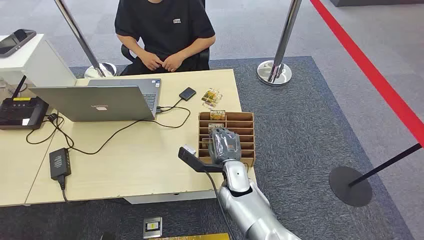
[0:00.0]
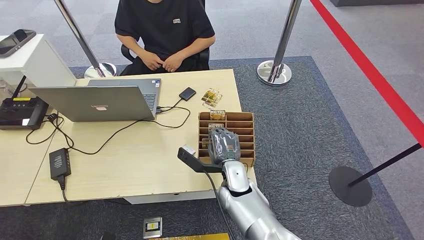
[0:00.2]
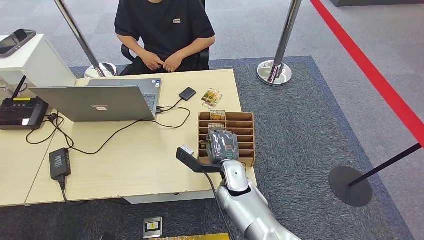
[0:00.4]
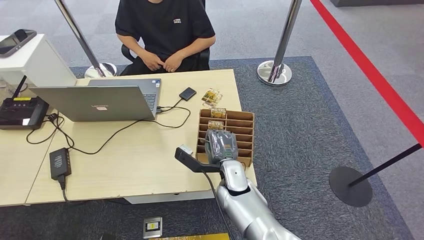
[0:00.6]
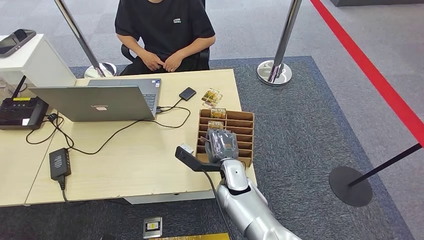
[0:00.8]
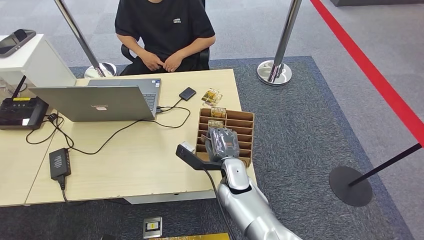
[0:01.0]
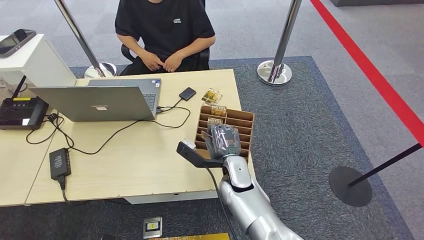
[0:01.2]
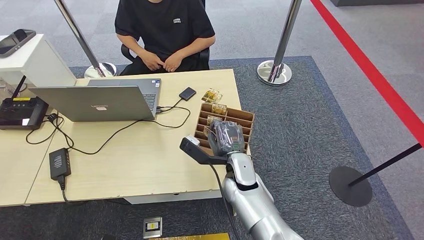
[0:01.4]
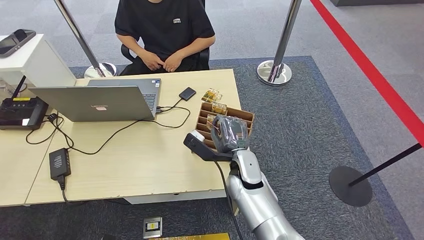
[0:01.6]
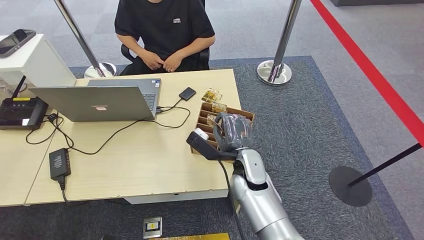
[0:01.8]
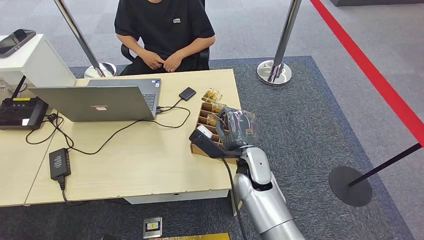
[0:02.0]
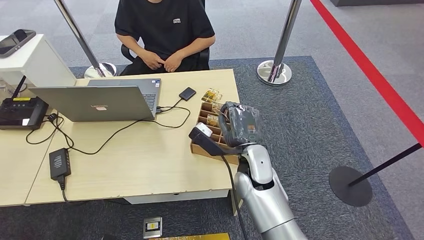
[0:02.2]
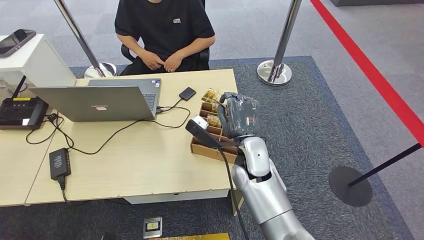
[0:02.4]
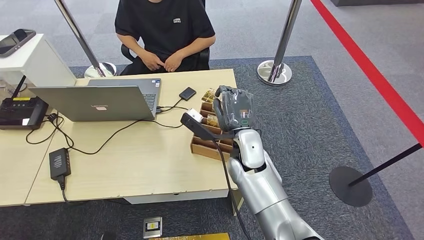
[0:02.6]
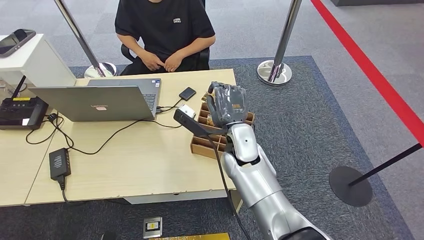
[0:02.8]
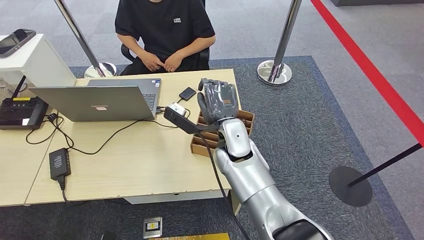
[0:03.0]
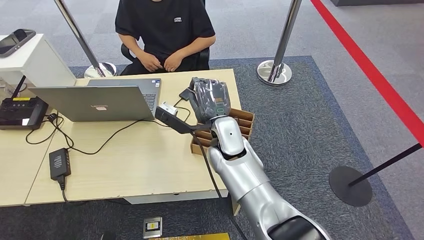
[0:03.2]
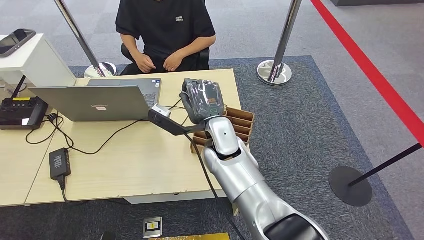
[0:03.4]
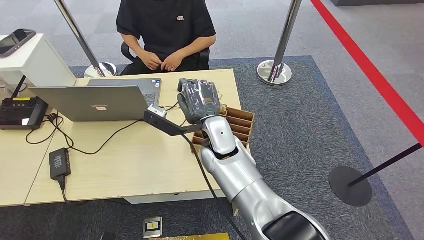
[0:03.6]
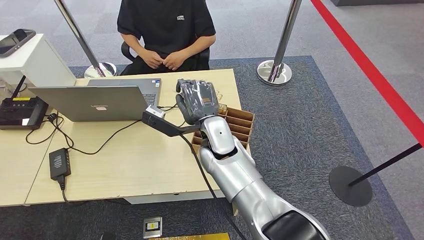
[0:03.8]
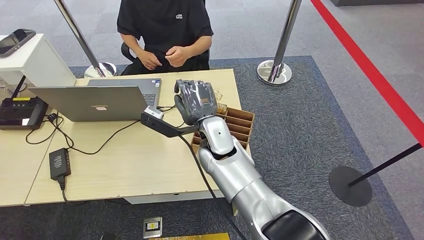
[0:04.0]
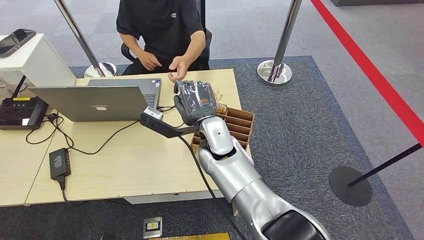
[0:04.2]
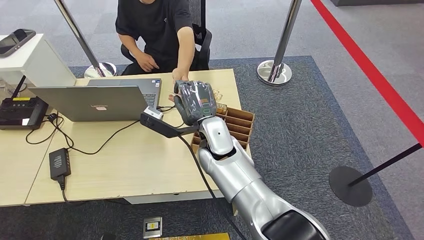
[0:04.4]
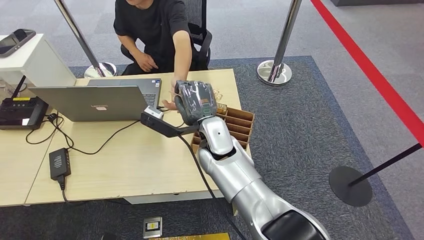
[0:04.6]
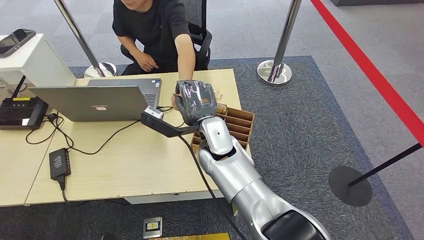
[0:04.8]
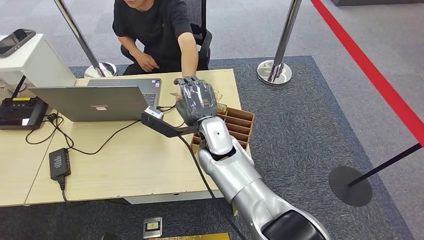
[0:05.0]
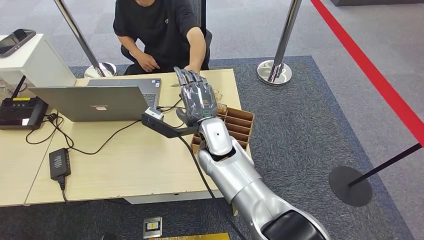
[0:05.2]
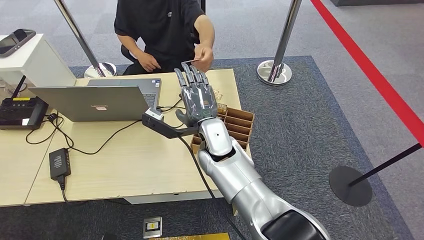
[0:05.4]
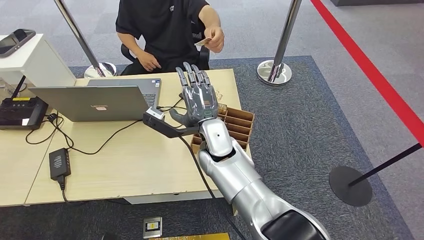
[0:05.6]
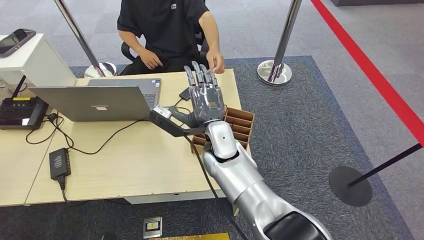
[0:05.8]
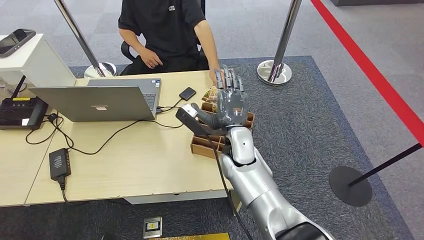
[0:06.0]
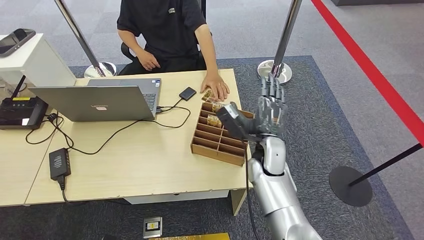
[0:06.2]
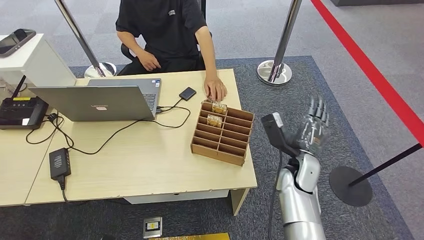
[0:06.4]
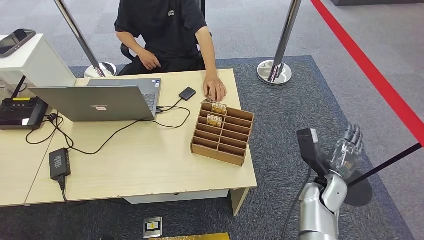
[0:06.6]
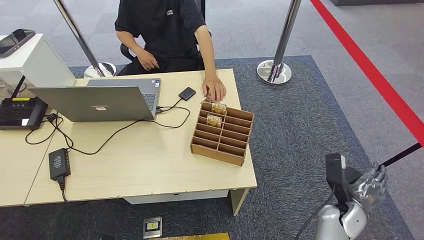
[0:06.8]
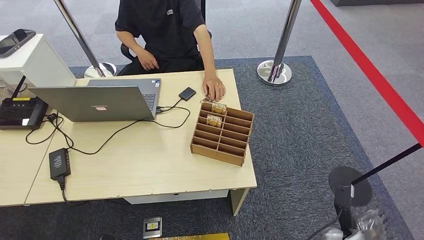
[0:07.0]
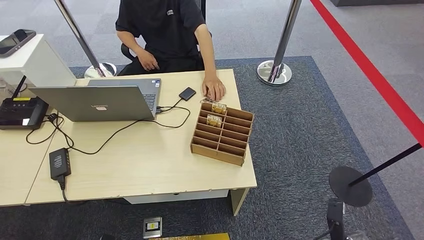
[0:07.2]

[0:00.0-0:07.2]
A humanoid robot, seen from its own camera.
Step, 0:00.0 to 0:04.0: Pick up the room card from the card holder.
Step, 0:04.4 to 0:07.2: Hand the room card to the target.
0:01.4 to 0:02.8: The right hand heads upward, covering roughly 10 cm.
0:02.8 to 0:04.4: The right hand is displaced to the left by some 5 cm.
0:04.4 to 0:05.8: The hands stay close to where they were, moving slightly.
0:05.8 to 0:07.2: The right hand heads to the right, downward and backward, covering roughly 40 cm.
